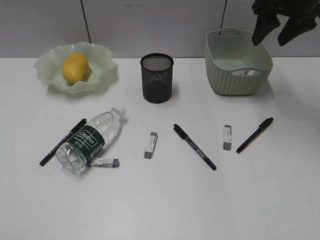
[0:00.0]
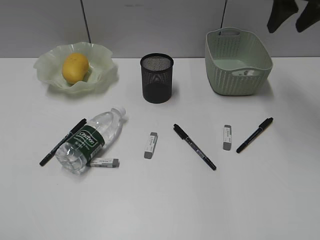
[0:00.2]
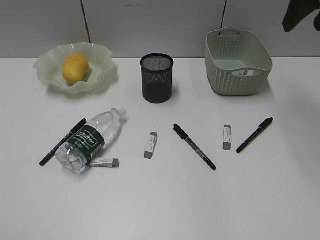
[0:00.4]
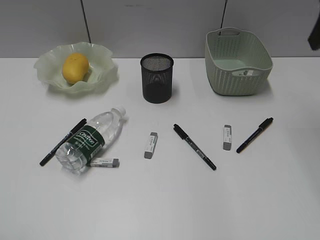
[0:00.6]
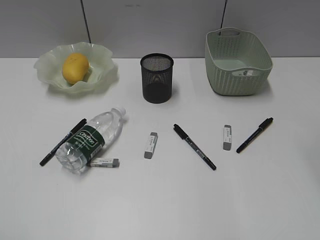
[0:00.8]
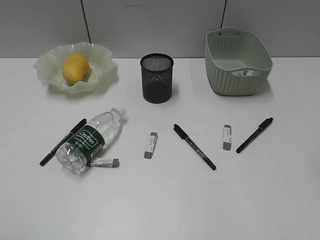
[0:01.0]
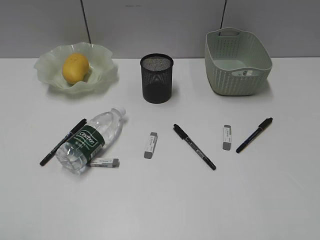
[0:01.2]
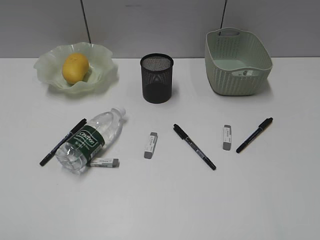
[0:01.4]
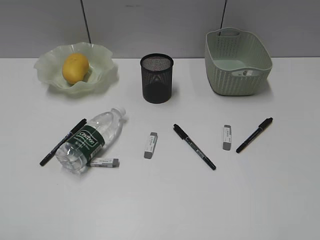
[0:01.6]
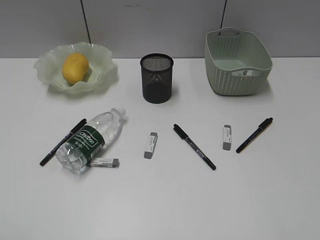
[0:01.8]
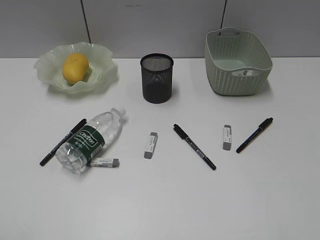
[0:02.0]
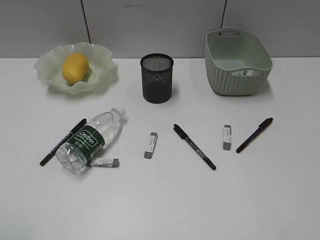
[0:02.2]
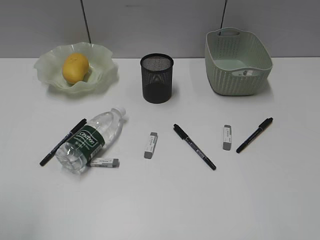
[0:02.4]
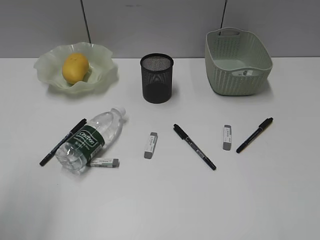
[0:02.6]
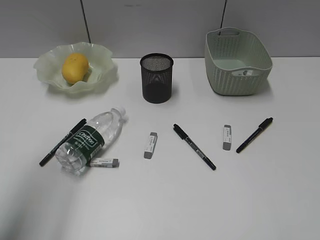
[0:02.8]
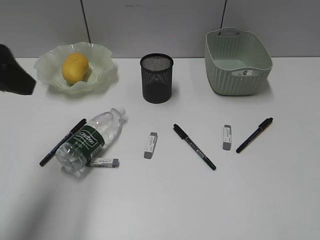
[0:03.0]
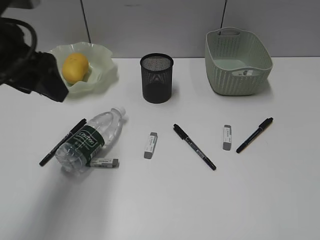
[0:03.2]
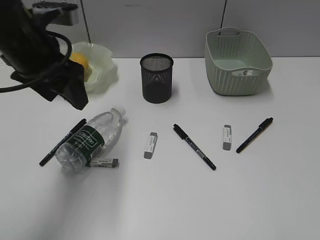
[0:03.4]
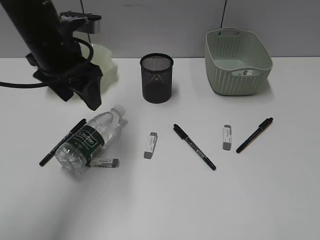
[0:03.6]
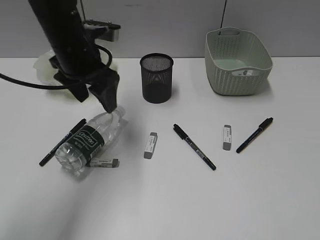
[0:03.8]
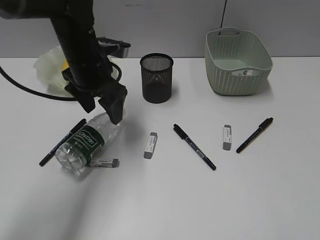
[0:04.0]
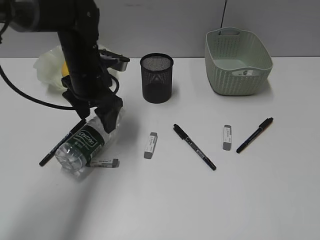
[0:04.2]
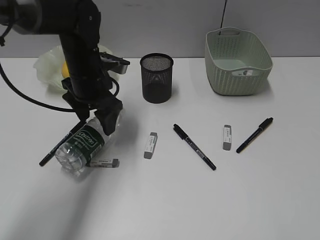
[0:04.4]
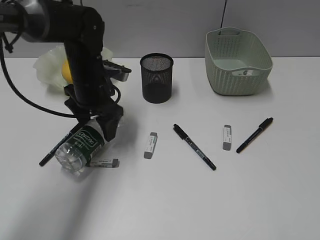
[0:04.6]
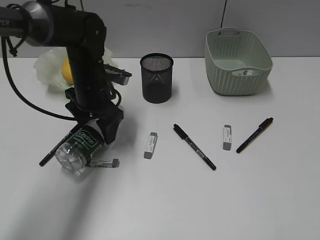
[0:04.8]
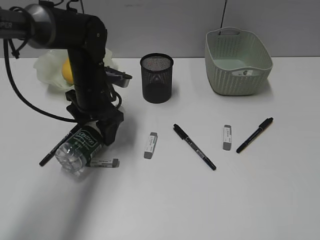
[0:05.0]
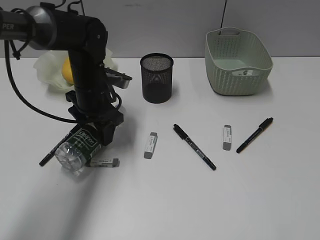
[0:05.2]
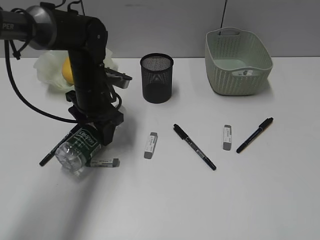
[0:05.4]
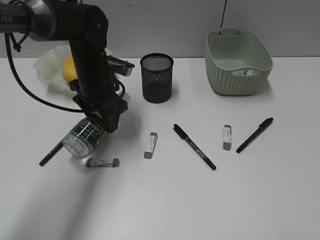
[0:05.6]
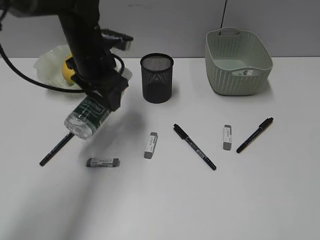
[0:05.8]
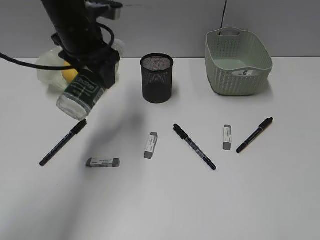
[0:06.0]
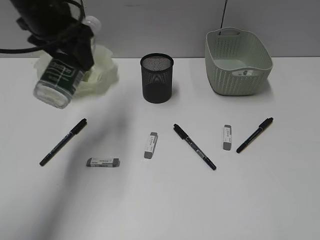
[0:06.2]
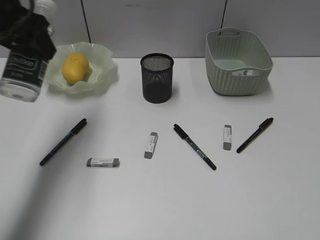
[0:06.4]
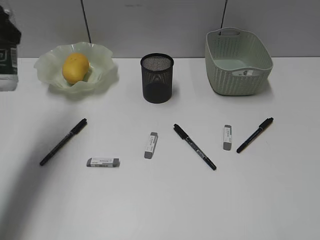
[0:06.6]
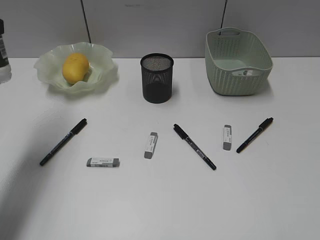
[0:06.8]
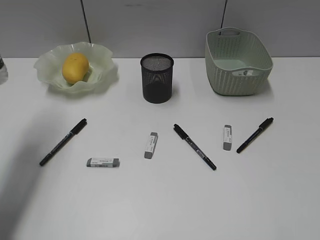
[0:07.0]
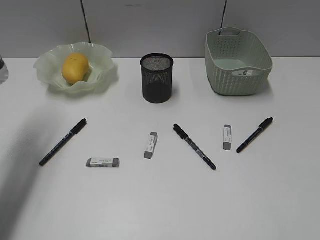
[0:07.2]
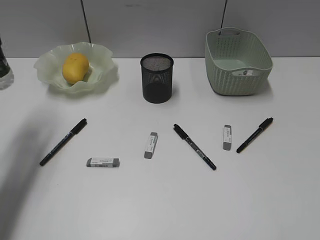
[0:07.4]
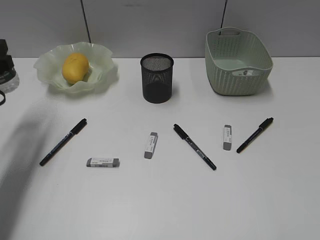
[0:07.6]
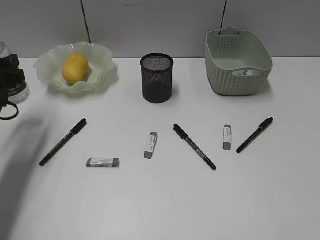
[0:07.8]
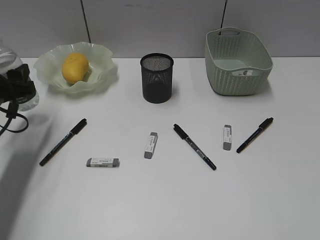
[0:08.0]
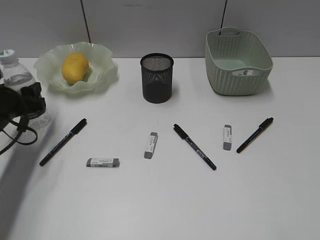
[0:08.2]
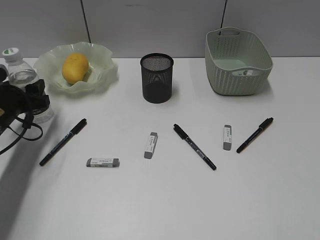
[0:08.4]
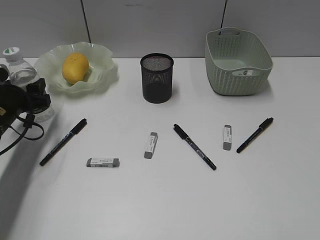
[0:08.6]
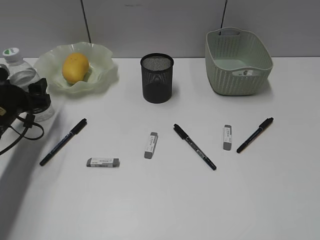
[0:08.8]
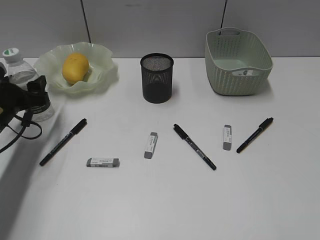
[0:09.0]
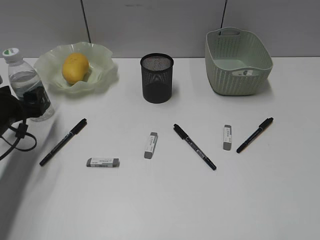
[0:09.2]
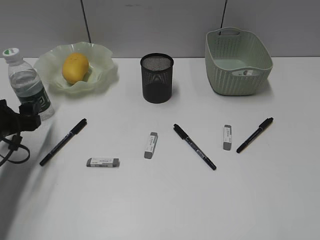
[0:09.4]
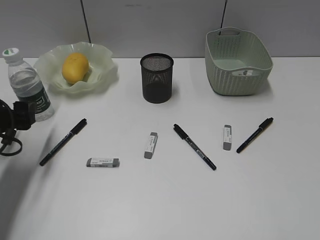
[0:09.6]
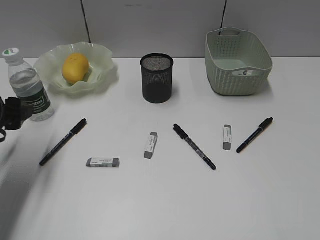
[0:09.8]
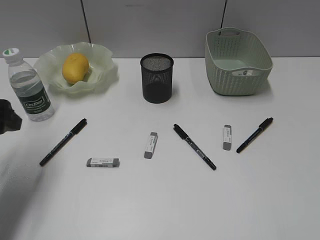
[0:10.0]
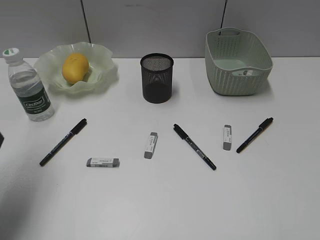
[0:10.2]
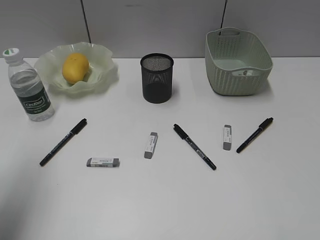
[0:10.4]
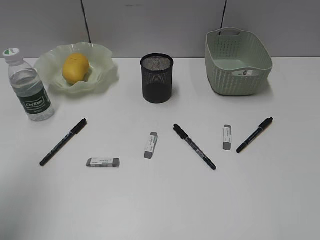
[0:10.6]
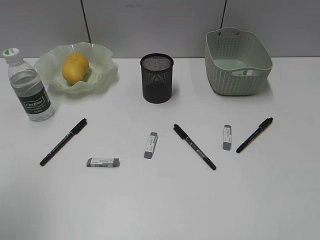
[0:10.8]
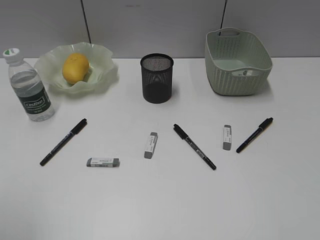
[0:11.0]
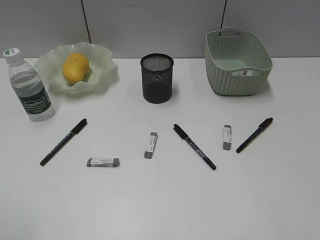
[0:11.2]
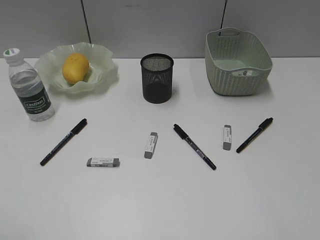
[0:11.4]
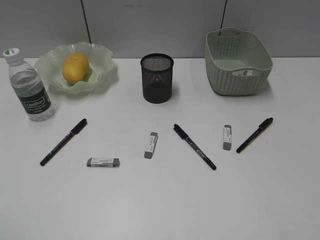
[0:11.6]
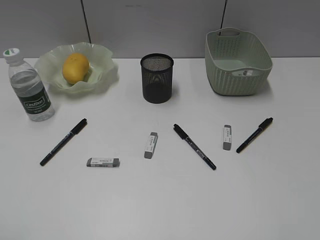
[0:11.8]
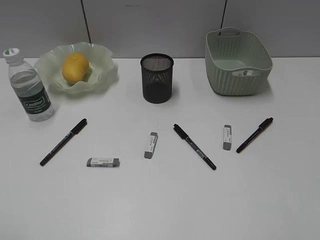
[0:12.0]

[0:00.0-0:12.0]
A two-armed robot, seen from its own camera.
Step, 0:00.0 to 0:05.4: Grasp the bottle with left gripper.
Step, 0:05.6 to 0:09.2: Stand the bottle with left gripper.
0:00.0 to 0:01.6: The right gripper shifts approximately 40 cm backward.
0:01.6 to 0:03.0: The left gripper shifts about 25 cm forward.
0:03.0 to 0:04.4: The left gripper is displaced forward, downward and to the right by about 25 cm.
0:04.4 to 0:06.0: The left gripper shifts roughly 10 cm upward.
0:06.0 to 0:07.6: The left gripper travels to the left and backward by roughly 20 cm.
0:07.6 to 0:09.0: The left gripper shifts about 10 cm downward.
0:09.0 to 0:10.4: The left gripper moves upward and backward, about 20 cm.
0:10.4 to 0:12.0: The left gripper is displaced backward by approximately 20 cm.

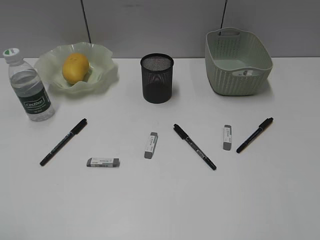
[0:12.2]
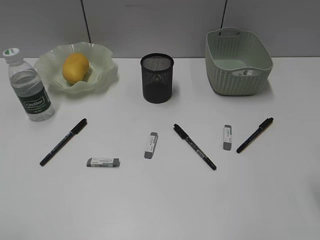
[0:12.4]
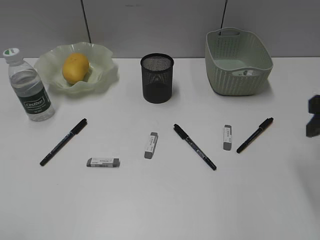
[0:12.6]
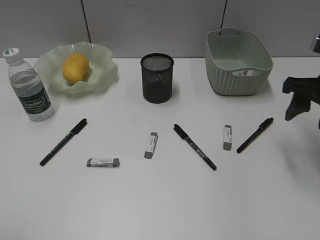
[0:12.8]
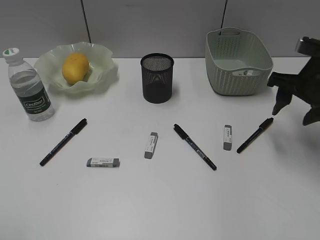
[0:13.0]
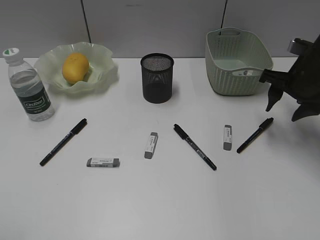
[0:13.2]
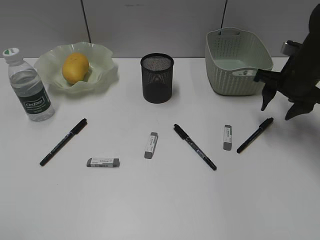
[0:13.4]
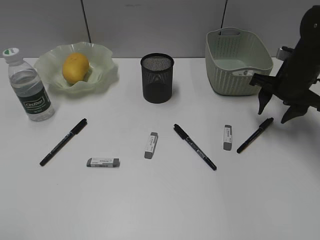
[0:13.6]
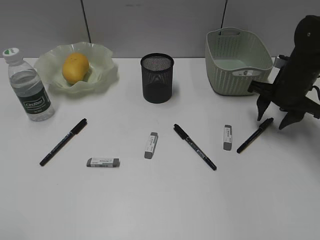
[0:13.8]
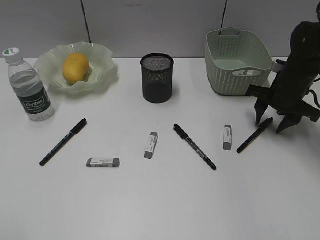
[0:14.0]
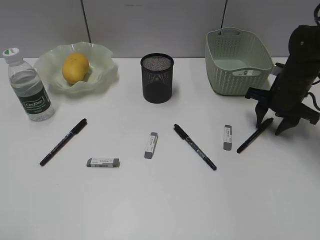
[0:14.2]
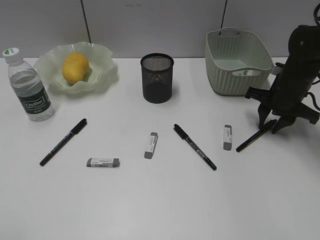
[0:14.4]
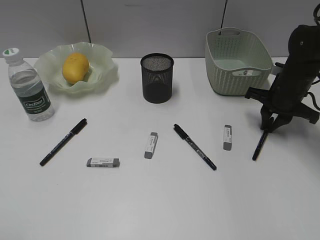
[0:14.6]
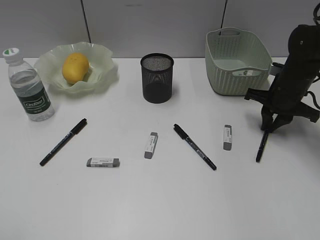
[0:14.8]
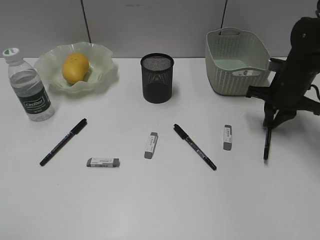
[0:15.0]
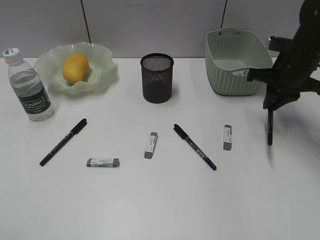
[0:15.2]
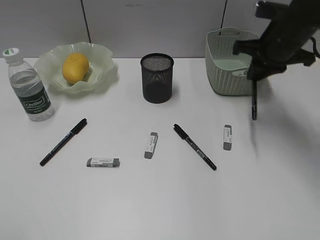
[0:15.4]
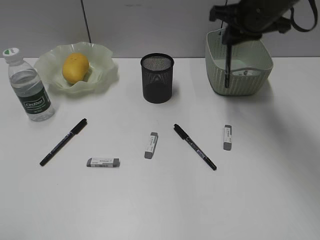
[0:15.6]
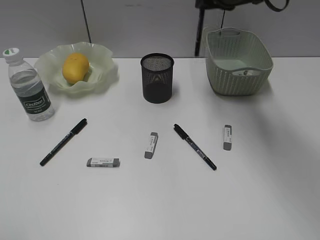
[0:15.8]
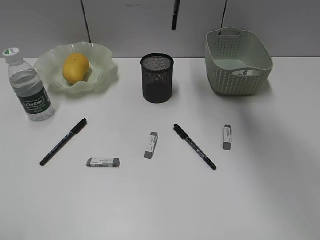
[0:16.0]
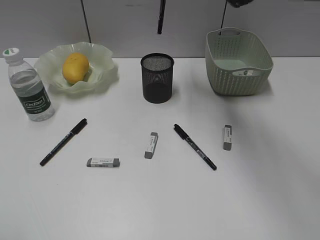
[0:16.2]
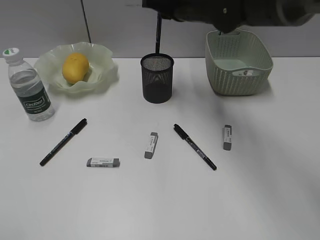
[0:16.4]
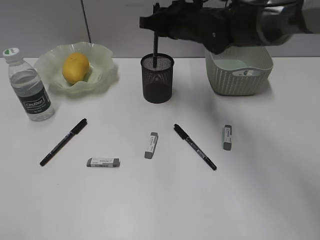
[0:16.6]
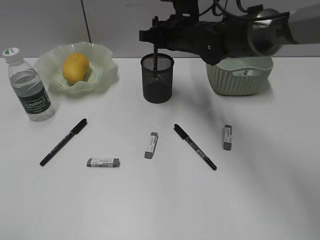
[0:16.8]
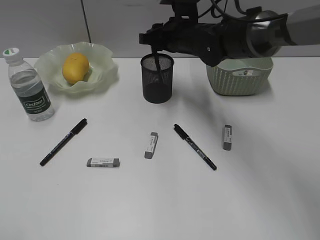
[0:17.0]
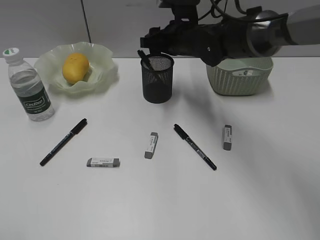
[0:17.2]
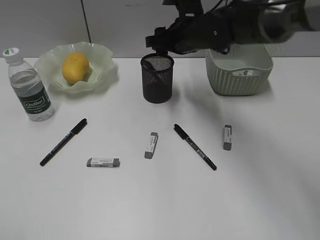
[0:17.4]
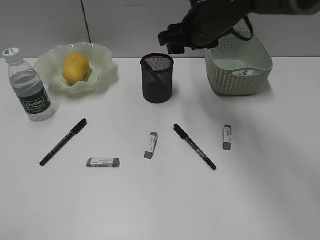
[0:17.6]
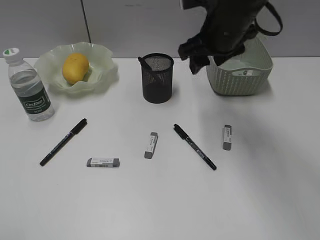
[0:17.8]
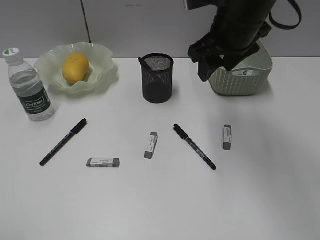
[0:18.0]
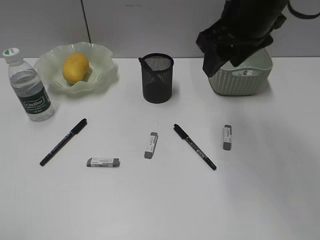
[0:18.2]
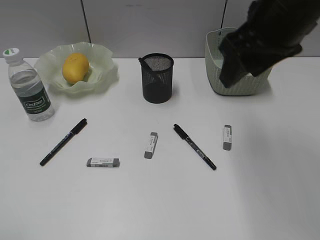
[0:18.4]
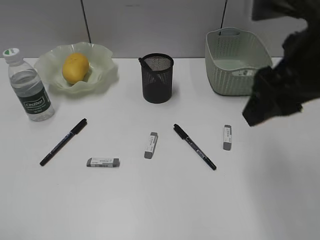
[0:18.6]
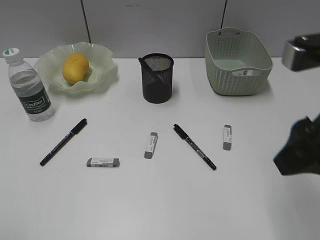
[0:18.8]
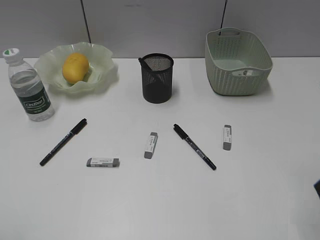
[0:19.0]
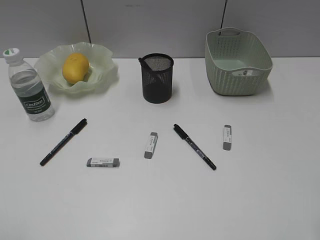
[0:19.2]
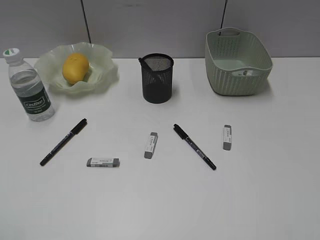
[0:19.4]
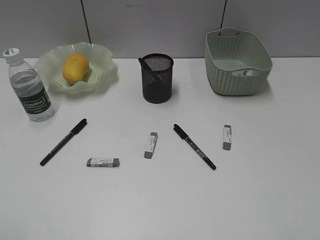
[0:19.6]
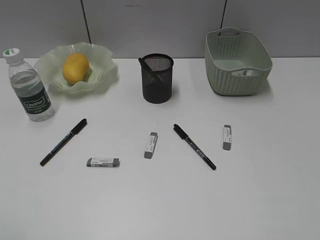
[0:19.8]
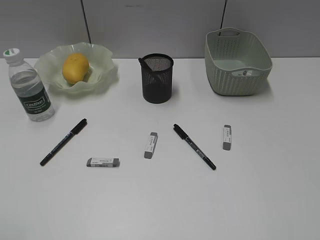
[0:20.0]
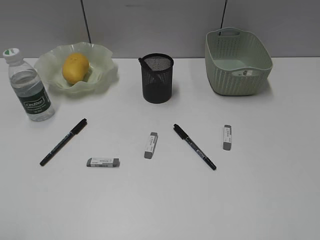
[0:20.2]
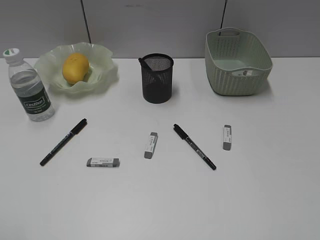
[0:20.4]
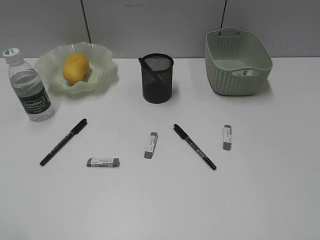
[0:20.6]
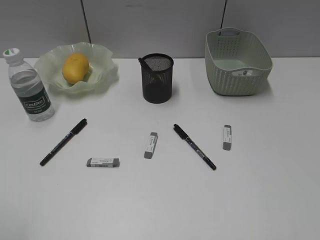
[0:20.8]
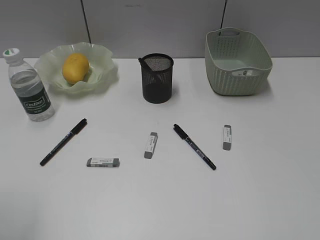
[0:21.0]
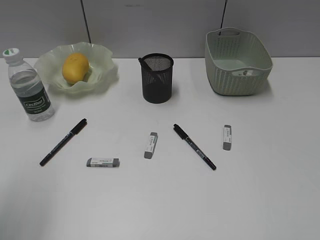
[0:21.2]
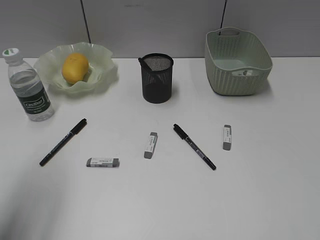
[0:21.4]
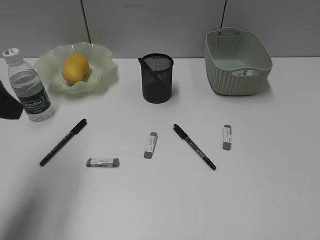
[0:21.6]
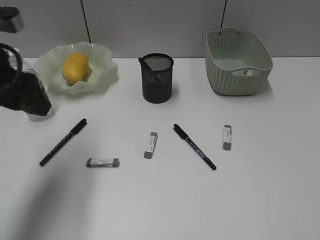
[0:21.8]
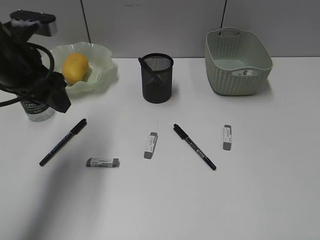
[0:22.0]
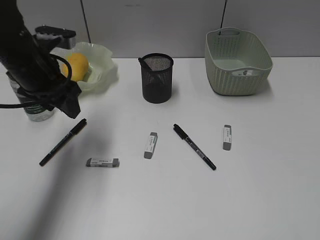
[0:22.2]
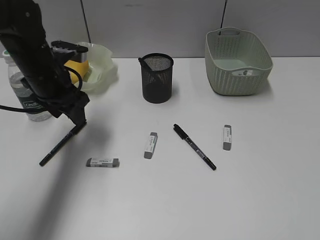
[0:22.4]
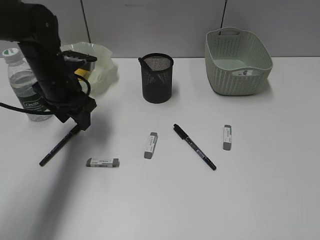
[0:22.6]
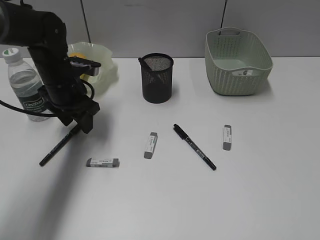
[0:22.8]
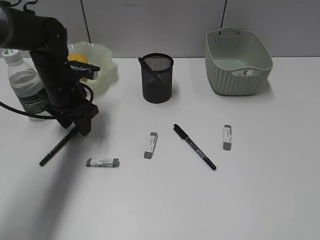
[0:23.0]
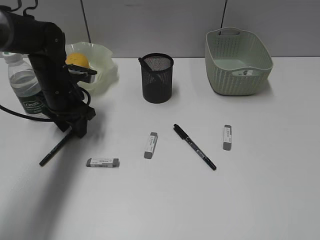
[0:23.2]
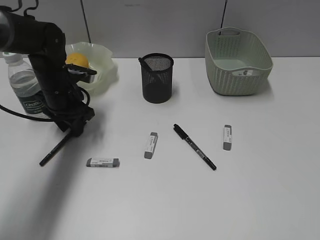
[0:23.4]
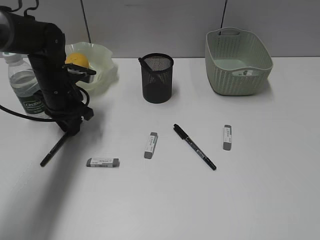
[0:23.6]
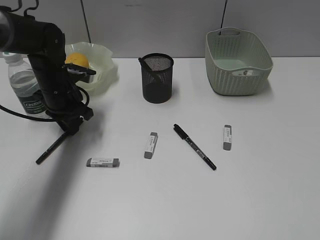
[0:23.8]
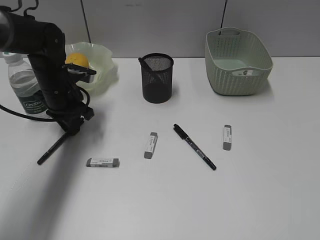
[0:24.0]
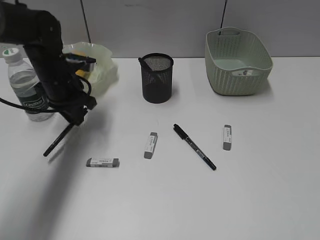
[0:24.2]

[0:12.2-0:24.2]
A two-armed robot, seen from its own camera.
Step, 0:12.2 to 0:14.8: Grasp the black pen with right gripper.
Step, 0:15.0 to 0:17.2: Place the black pen in pen holder with right gripper.
Step, 0:17.4 to 0:23.8: Grasp the black pen with left gripper.
0:12.2 to 0:13.8: The right gripper shifts about 30 cm forward and downward.
0:13.8 to 0:15.2: The right gripper closes its fingers.
0:15.2 to 0:16.6: The right gripper is displaced to the left by roughly 20 cm.
0:16.6 to 0:18.2: The right gripper shifts roughly 15 cm backward, upward and to the right, and opens its fingers.
0:18.2 to 0:19.8: The right gripper travels backward and to the right by approximately 35 cm.
0:19.8 to 0:21.2: The left gripper moves forward, approximately 10 cm.
0:21.2 to 0:22.6: The left gripper heads forward, downward and to the right, covering roughly 30 cm.
0:22.6 to 0:24.2: The left gripper closes its fingers.
